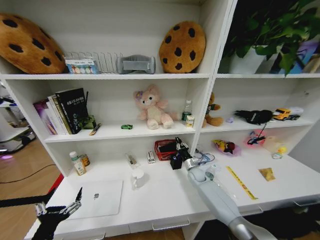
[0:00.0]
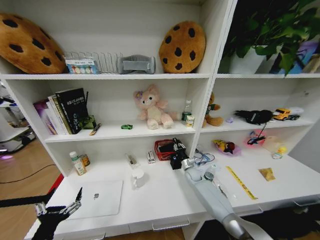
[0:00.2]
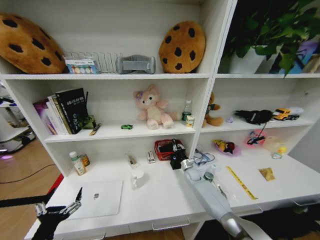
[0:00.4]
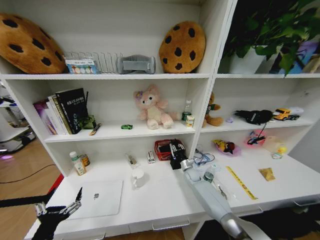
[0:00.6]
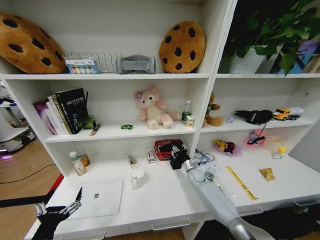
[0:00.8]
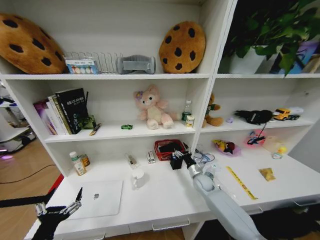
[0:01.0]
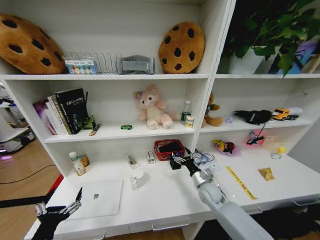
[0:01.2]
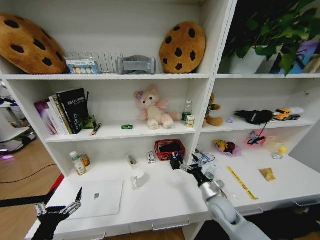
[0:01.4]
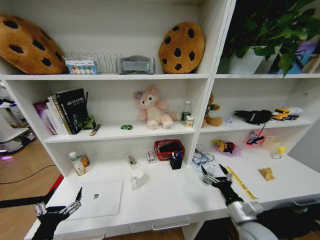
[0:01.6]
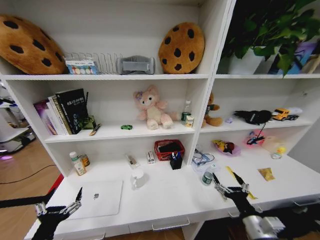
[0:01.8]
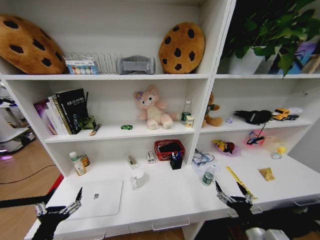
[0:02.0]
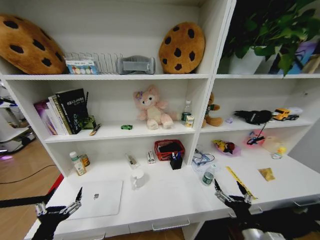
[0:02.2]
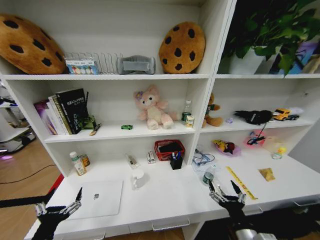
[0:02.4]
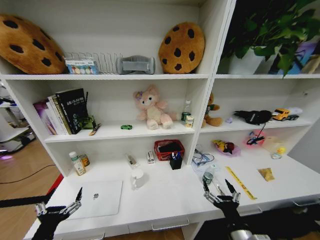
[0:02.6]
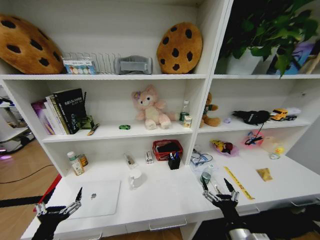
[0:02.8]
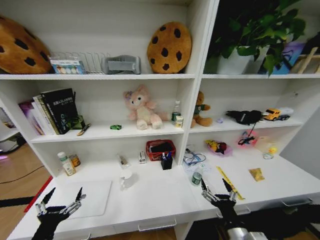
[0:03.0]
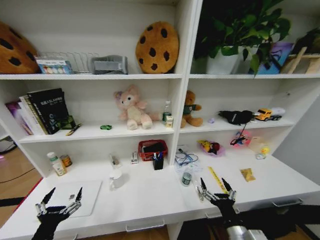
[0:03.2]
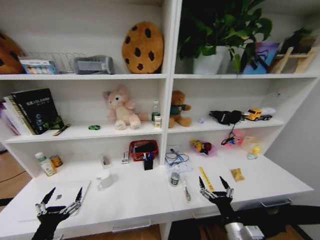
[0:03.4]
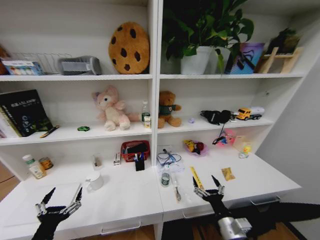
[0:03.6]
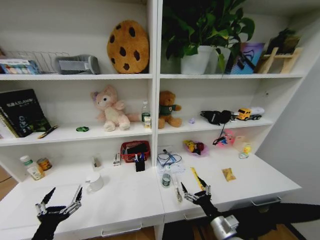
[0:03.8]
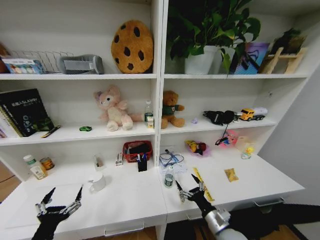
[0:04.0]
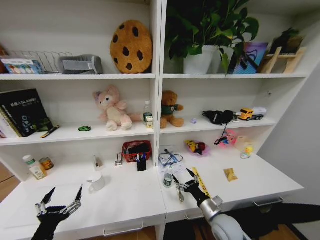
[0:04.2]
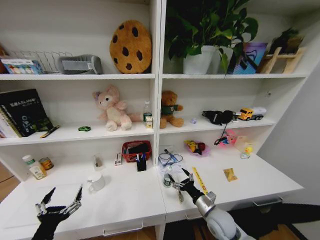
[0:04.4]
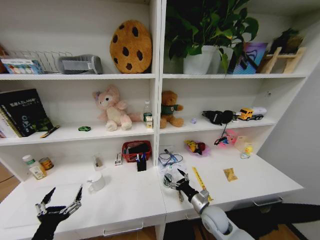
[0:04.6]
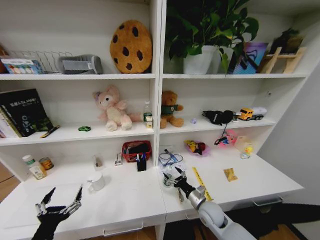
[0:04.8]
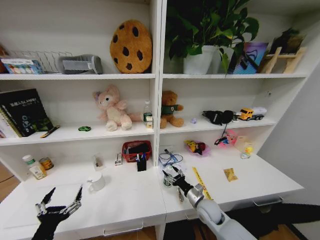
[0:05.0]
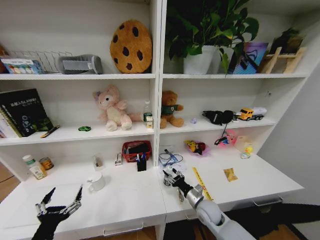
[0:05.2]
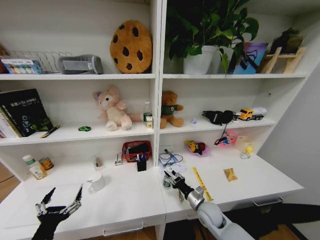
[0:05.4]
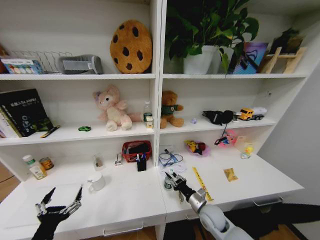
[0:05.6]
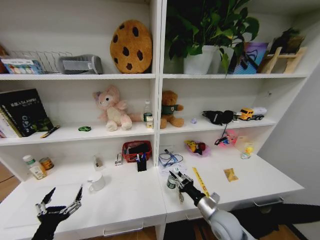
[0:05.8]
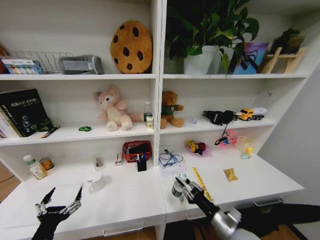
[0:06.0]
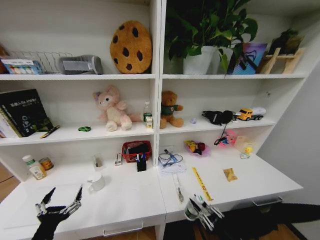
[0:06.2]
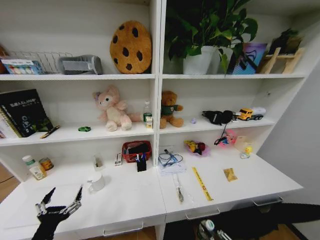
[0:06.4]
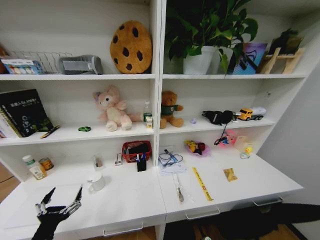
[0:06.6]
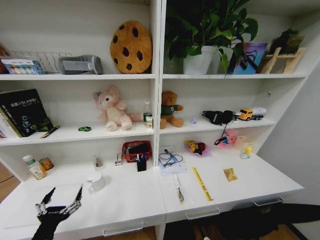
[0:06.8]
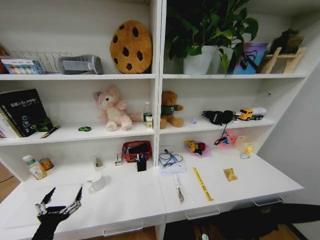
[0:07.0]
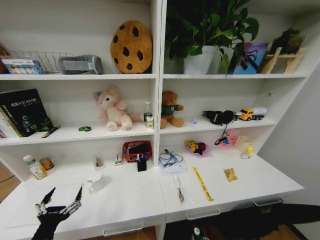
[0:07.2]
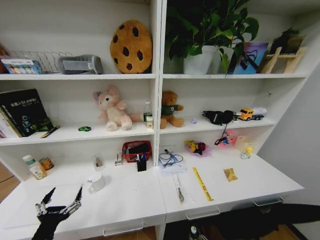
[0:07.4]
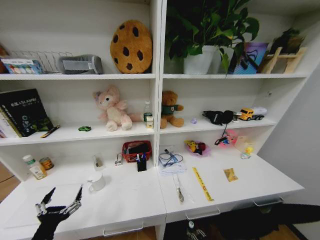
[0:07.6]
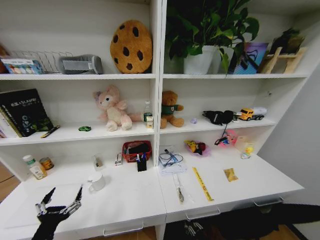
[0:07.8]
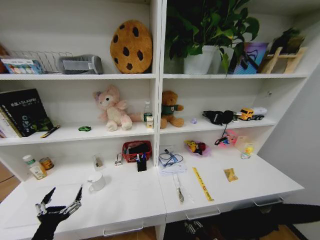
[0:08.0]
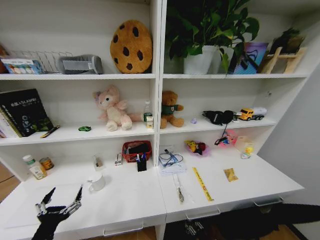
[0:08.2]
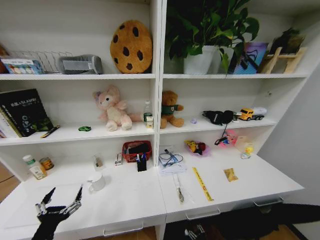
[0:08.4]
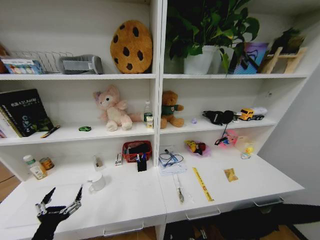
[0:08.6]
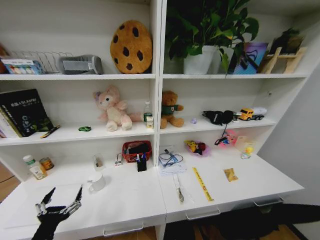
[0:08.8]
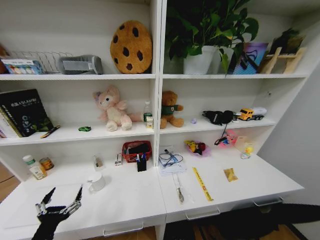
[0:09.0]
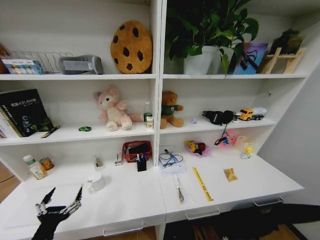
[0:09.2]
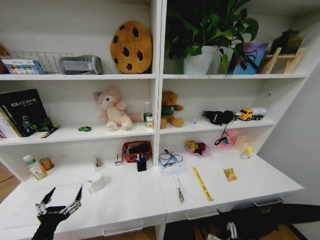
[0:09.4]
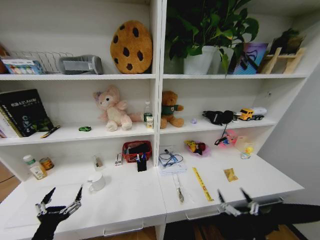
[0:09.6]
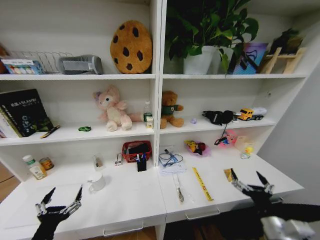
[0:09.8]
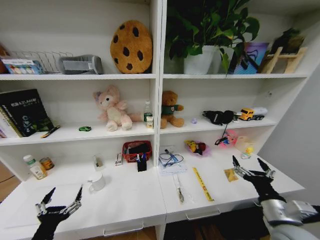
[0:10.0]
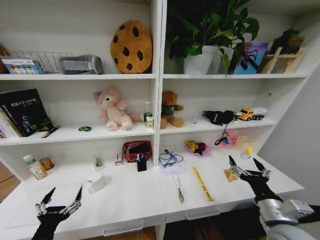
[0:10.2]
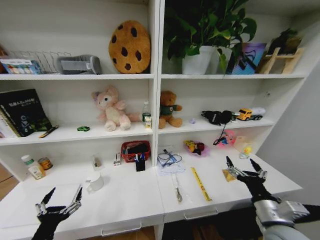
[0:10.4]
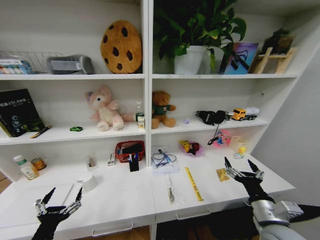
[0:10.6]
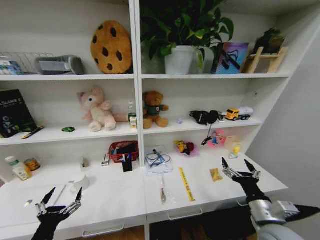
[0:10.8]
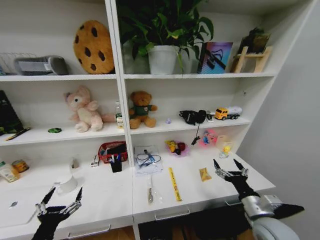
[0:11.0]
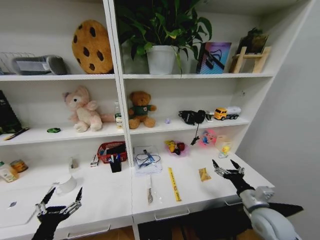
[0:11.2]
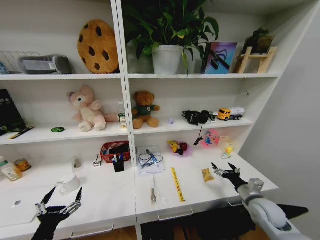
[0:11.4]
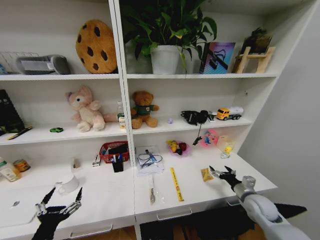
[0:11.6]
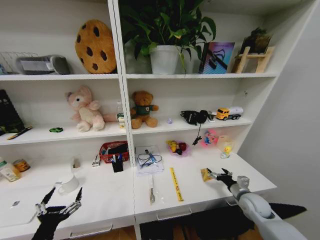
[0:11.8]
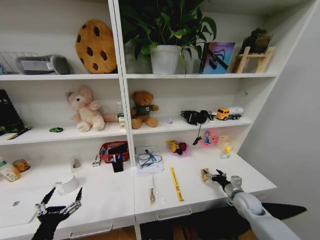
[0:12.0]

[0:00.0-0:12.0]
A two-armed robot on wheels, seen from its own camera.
Task of the whole recording: Organize the objects on the table.
0:00.0 to 0:01.6: The right gripper shifts about 30 cm backward, and opens up.
0:01.6 to 0:03.0: The right gripper is displaced backward and to the left by some 10 cm.
0:03.0 to 0:04.4: The right gripper shifts some 15 cm forward and downward.
0:04.4 to 0:06.0: The right gripper goes some 10 cm backward and upward, and closes.
0:06.0 to 0:07.6: The right gripper heads downward, covering roughly 40 cm.
0:09.0 to 0:10.4: The right gripper is displaced upward and forward by roughly 40 cm.
0:10.4 to 0:12.0: The right gripper is displaced forward, downward and to the right by roughly 25 cm.

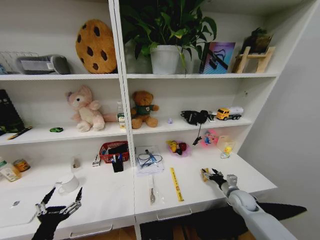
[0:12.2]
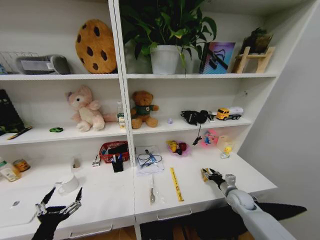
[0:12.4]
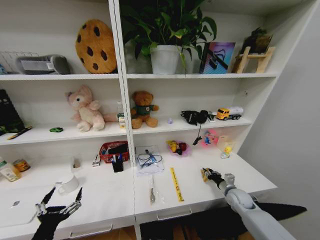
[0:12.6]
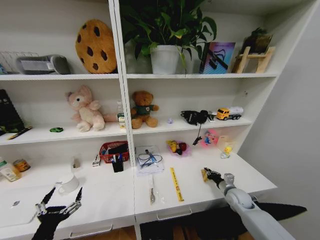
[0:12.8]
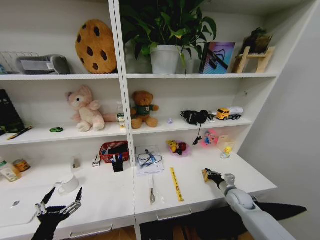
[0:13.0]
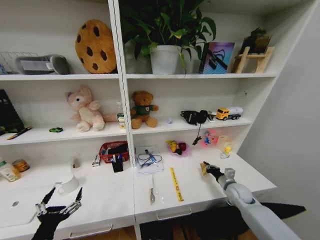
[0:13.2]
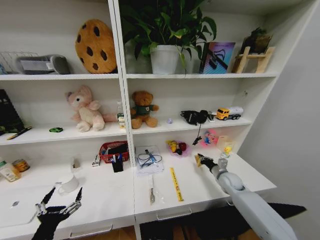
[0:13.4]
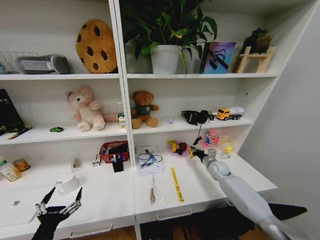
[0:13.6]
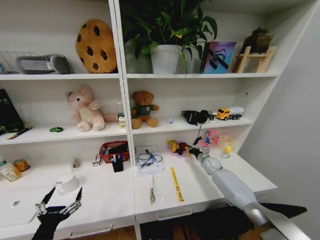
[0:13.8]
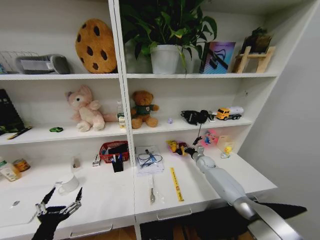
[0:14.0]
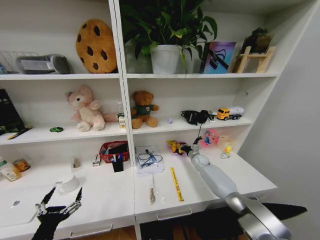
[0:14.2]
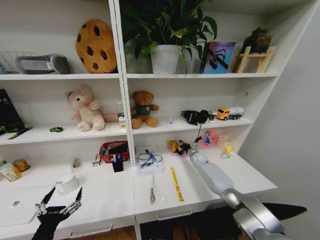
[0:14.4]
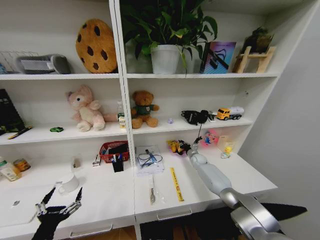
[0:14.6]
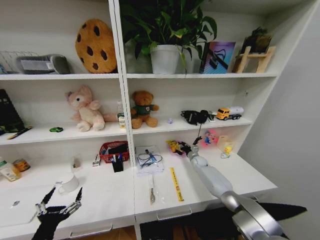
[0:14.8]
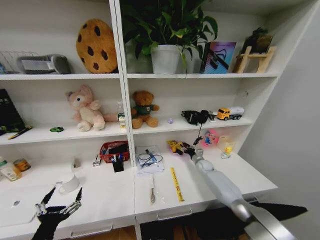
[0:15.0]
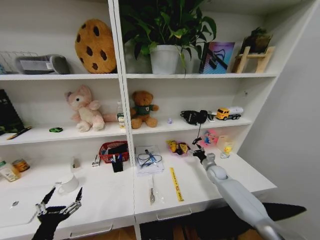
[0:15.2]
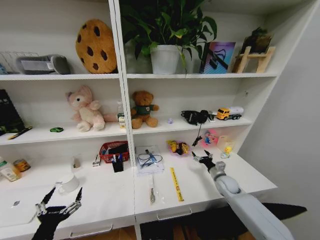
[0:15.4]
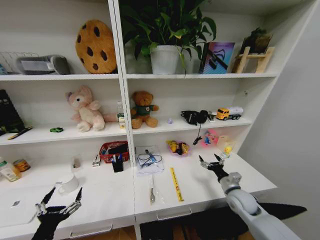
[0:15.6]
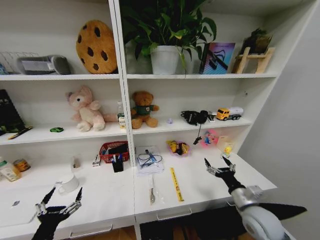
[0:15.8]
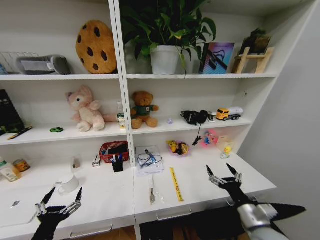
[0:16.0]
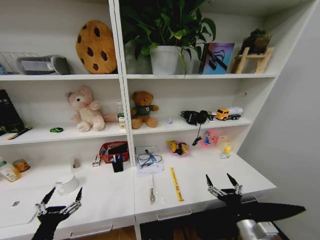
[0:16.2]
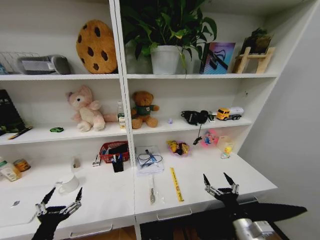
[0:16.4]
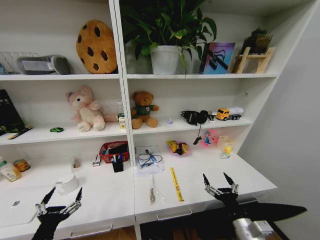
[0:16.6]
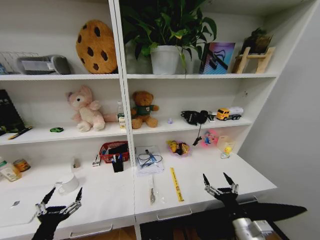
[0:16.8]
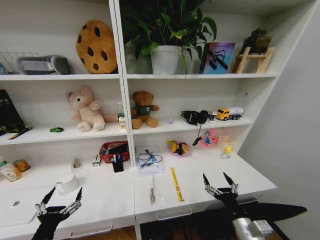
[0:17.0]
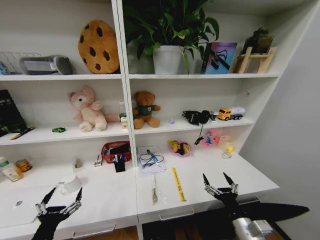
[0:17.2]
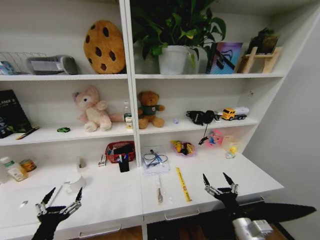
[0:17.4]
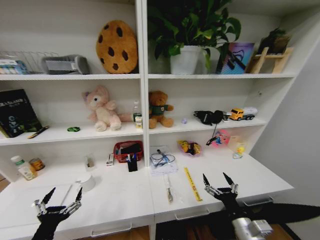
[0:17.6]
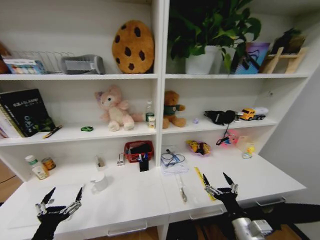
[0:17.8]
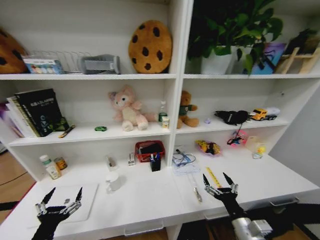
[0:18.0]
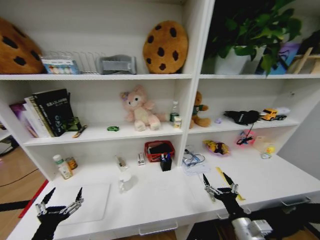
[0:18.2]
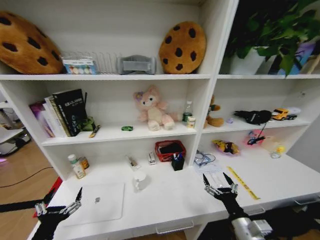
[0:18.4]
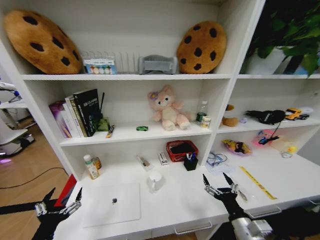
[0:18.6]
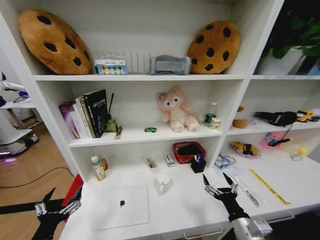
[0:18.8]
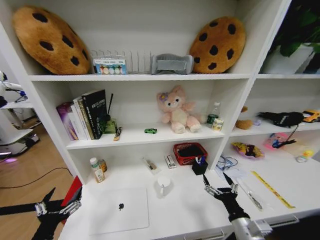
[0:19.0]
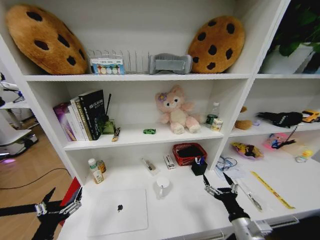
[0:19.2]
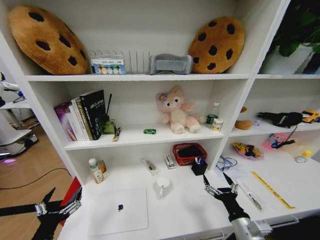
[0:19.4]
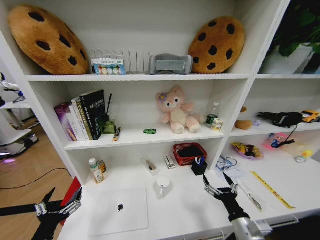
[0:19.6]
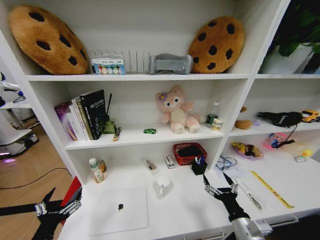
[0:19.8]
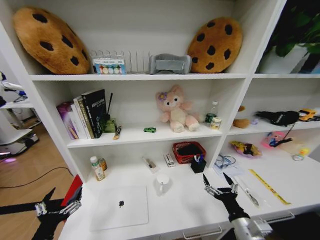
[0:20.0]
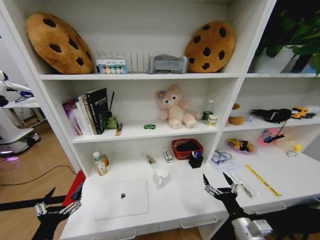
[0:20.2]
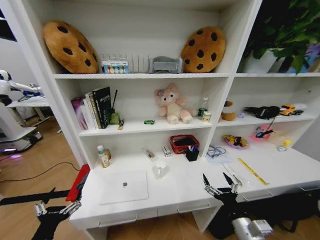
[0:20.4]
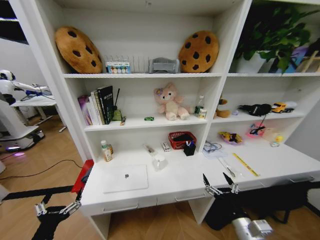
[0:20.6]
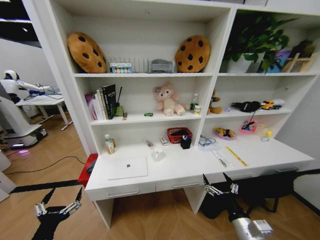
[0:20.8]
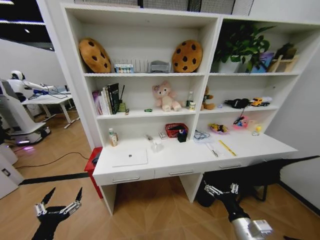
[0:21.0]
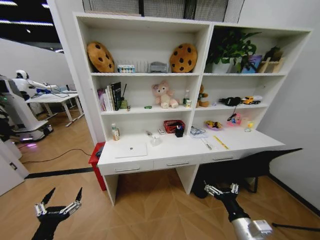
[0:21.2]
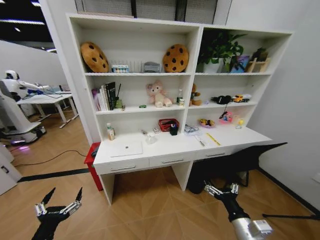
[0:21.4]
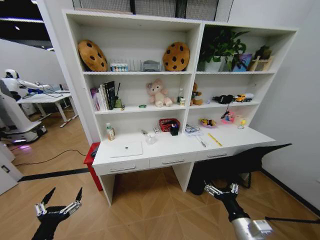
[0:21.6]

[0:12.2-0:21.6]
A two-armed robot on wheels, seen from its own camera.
Task of the whole recording: Organize the objects on the table.
0:12.2 to 0:13.8: The right gripper is displaced forward by about 20 cm, and closes its fingers.
0:13.8 to 0:15.4: The right gripper moves backward, approximately 15 cm, and opens.
0:15.4 to 0:17.0: The right gripper shifts roughly 25 cm backward.
